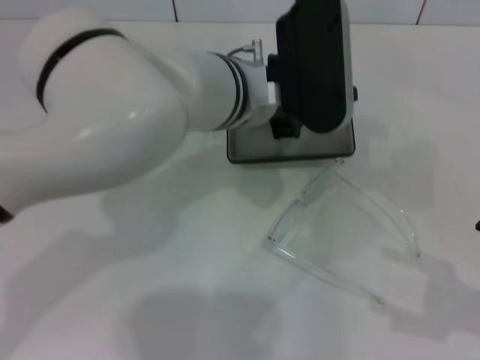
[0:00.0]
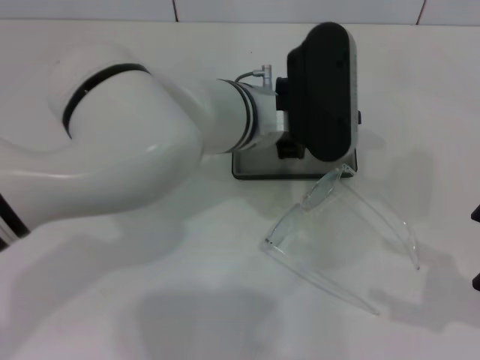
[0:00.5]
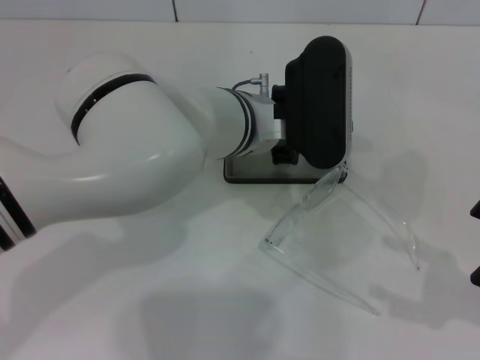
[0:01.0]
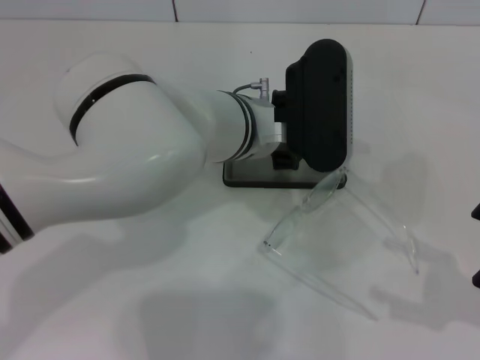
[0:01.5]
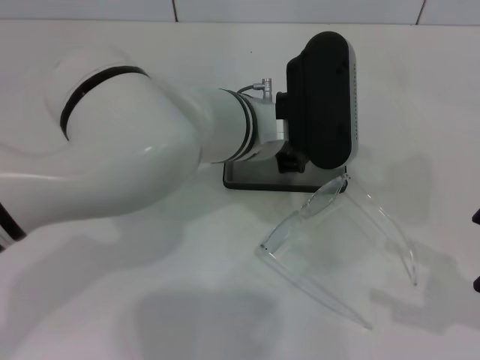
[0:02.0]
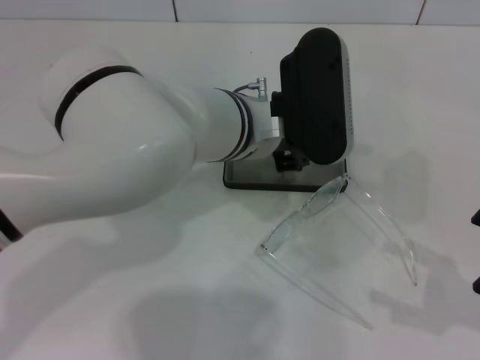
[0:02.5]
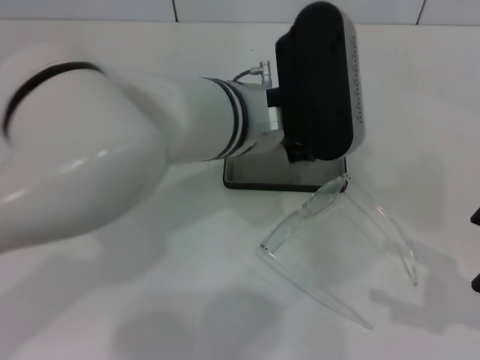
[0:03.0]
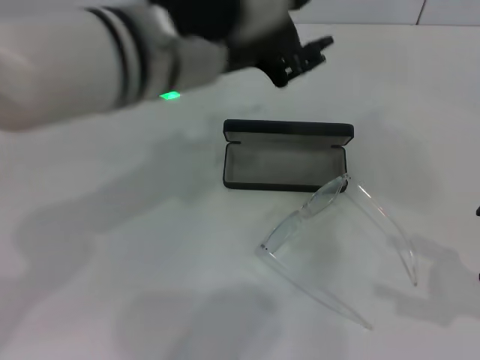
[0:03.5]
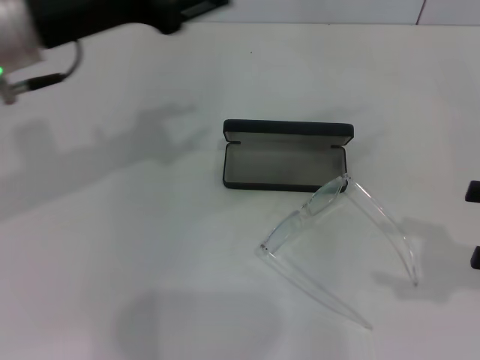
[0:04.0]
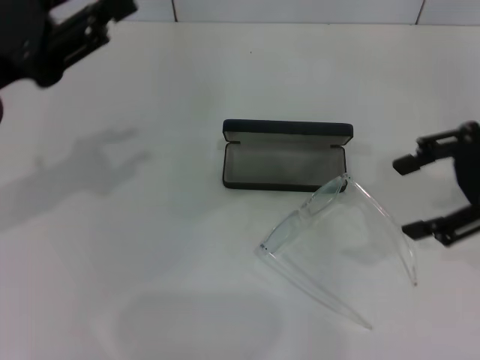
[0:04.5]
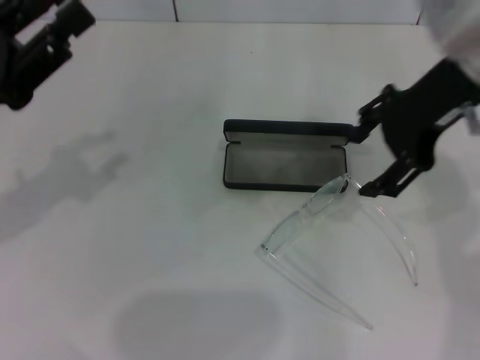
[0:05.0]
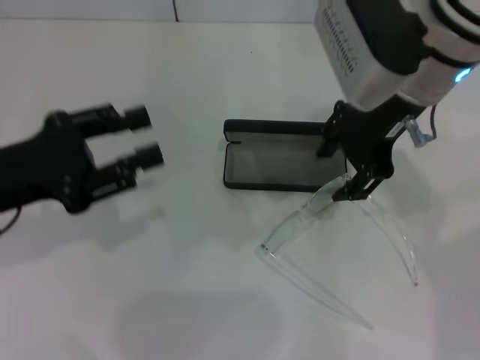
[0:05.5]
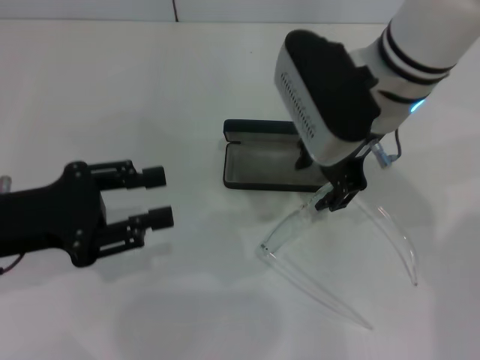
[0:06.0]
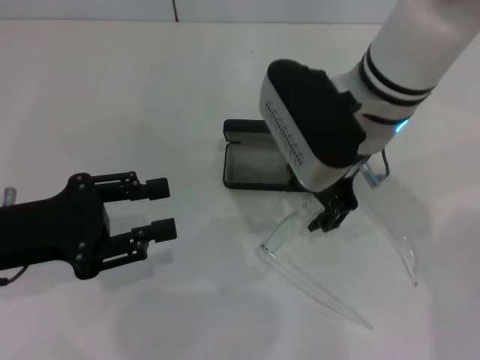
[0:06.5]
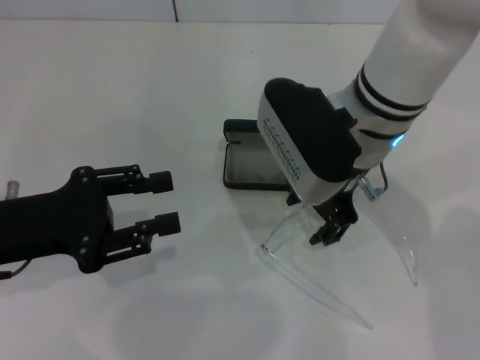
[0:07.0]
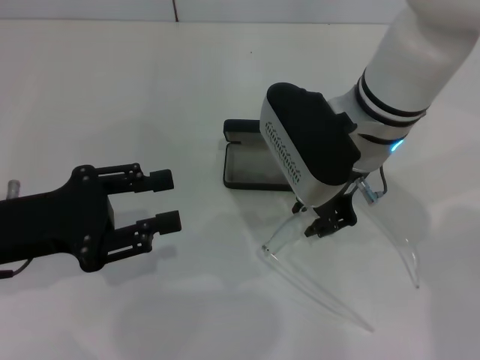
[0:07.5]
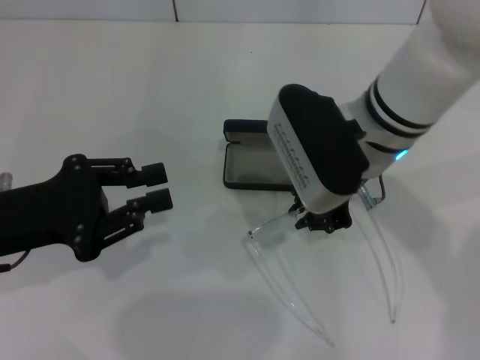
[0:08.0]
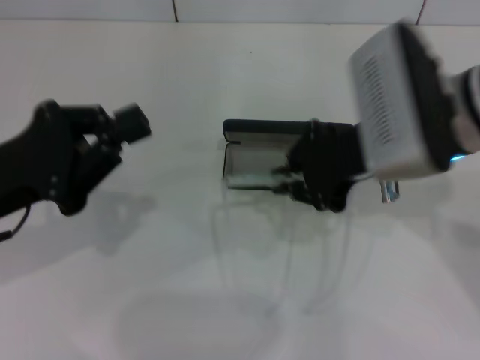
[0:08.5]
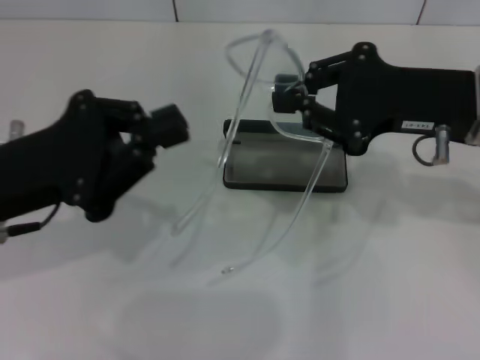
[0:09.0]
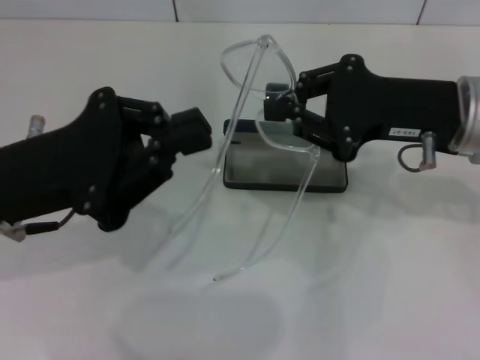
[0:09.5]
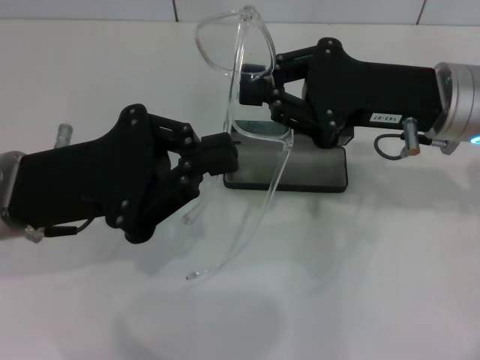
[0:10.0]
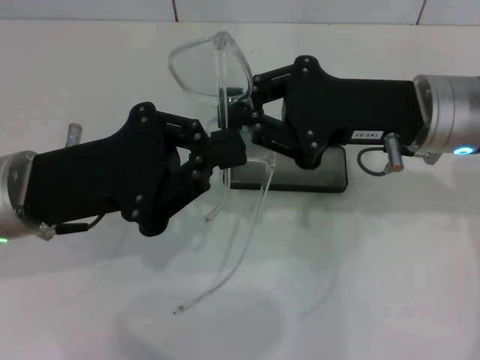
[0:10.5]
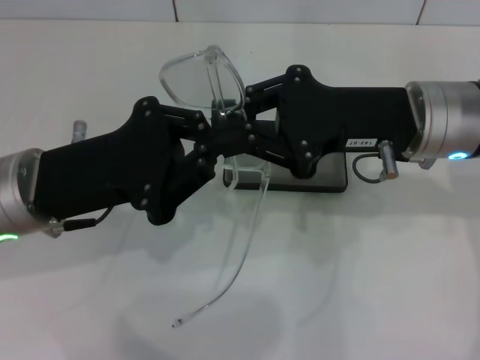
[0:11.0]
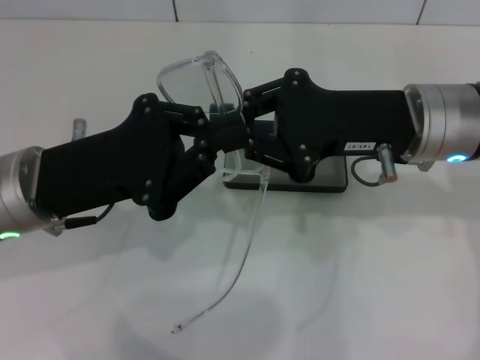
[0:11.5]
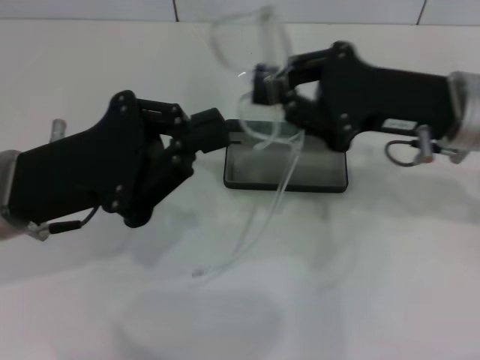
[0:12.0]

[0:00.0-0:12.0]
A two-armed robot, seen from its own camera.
Step, 0:02.0 to 0:07.5: Grab the eyeglass frame with your right hand.
0:00.0 to 0:02.0: The grippers make only small movements.
0:02.0 to 0:04.0: The right gripper is displaced upward and forward by about 5 cm; the left gripper goes roughly 20 cm to the left and upward.
0:04.0 to 0:06.0: The left gripper moves downward, to the left and backward, about 15 cm. Meanwhile the right gripper travels to the left and forward by roughly 30 cm.
0:06.0 to 0:08.0: The right gripper closes its fingers.
0:08.0 to 0:10.0: The right gripper travels to the right by about 10 cm; the left gripper is displaced to the right by some 5 cm, and closes up.
0:10.0 to 0:12.0: There are only small adjustments of the grippers.

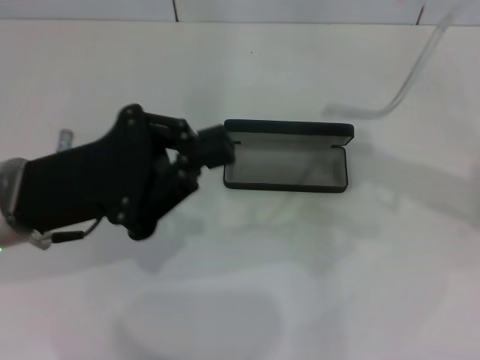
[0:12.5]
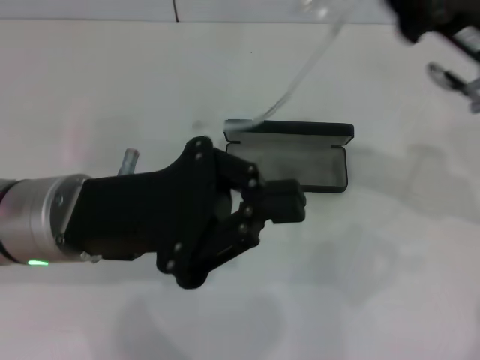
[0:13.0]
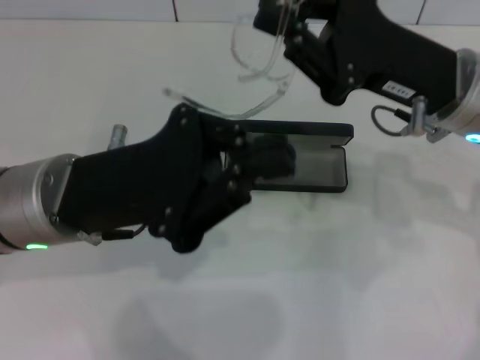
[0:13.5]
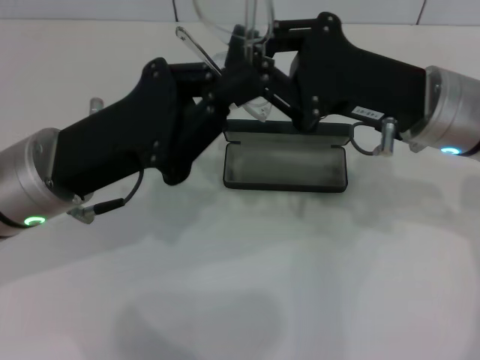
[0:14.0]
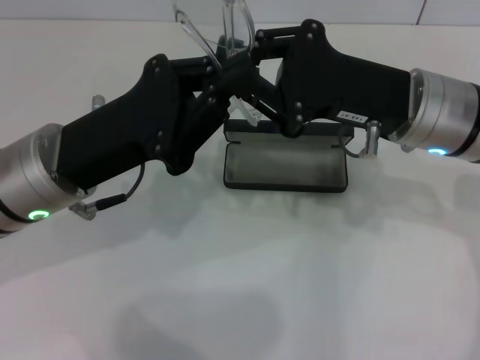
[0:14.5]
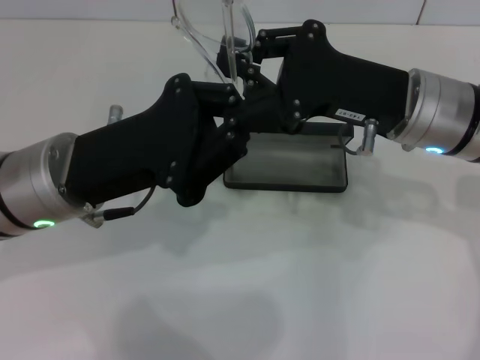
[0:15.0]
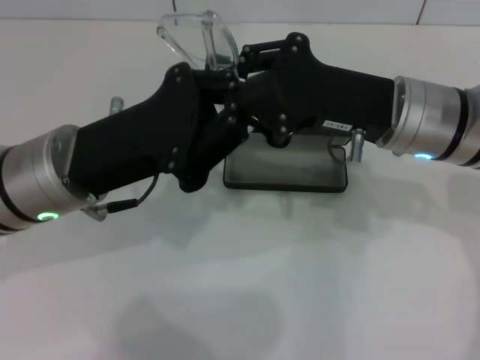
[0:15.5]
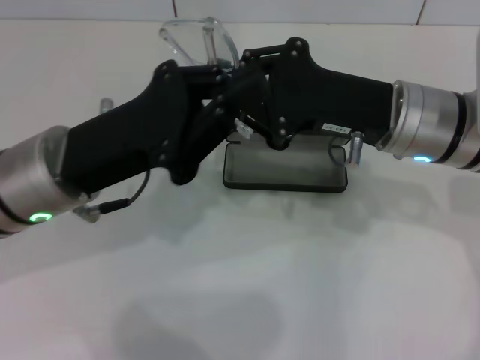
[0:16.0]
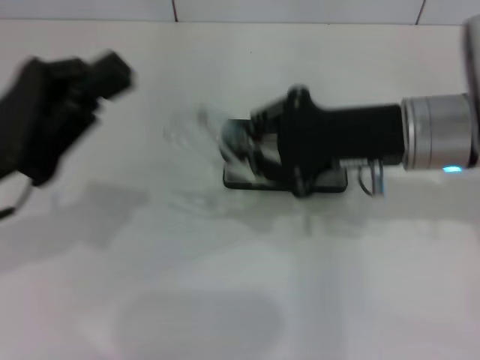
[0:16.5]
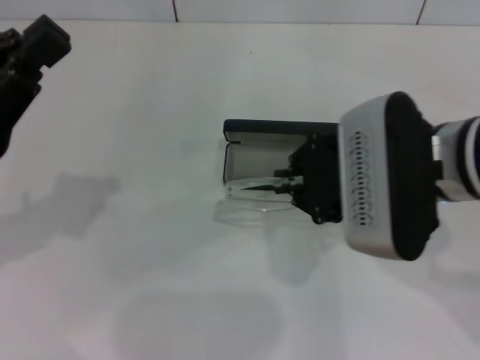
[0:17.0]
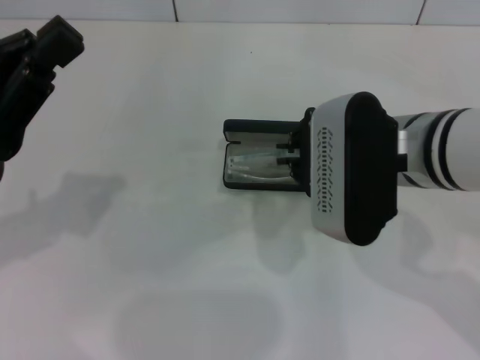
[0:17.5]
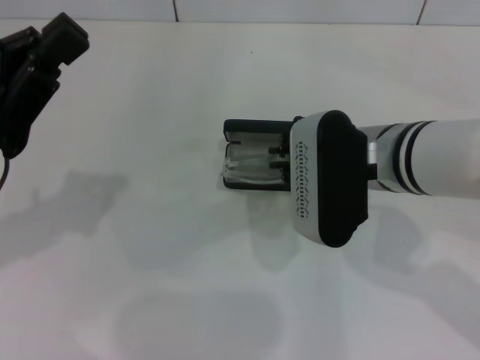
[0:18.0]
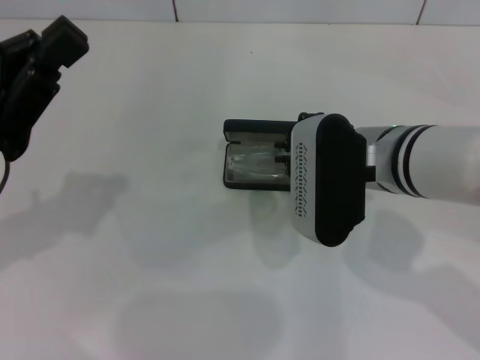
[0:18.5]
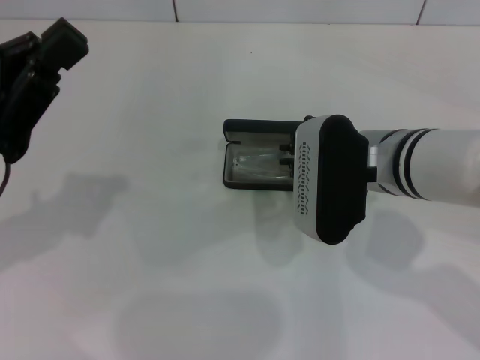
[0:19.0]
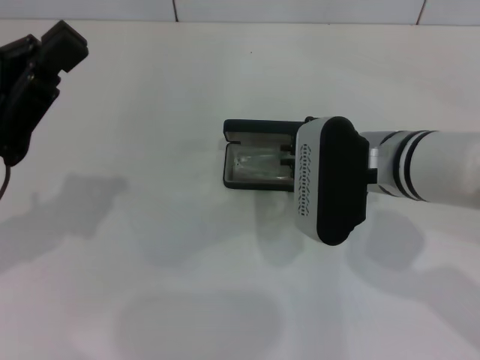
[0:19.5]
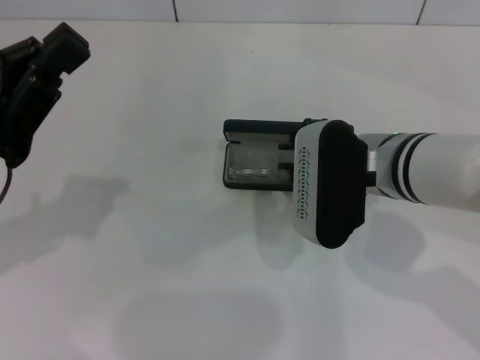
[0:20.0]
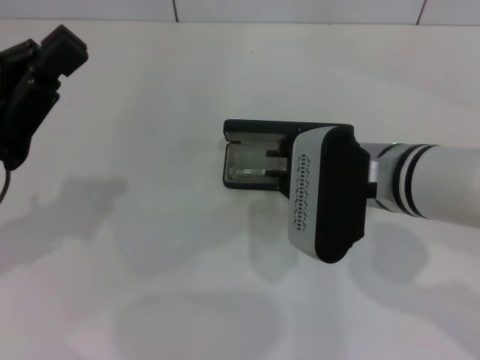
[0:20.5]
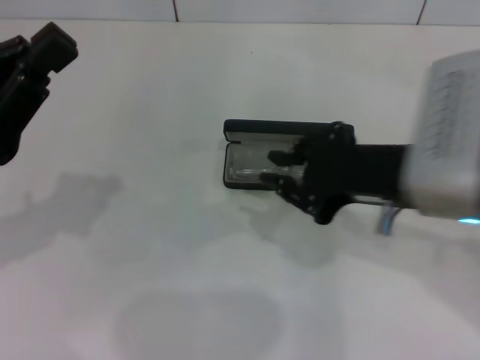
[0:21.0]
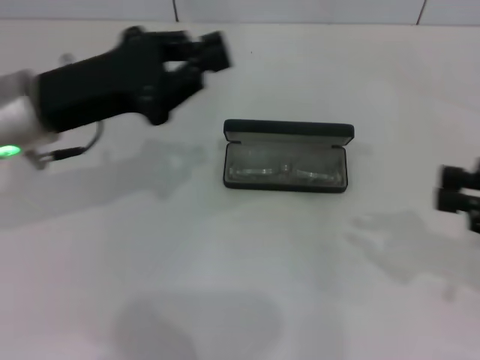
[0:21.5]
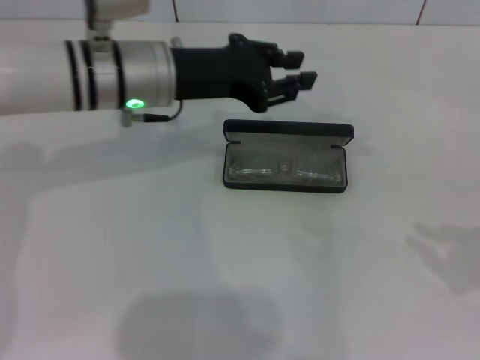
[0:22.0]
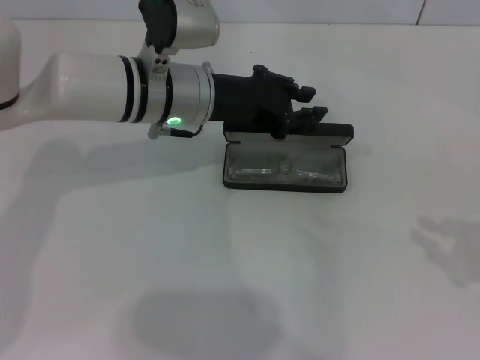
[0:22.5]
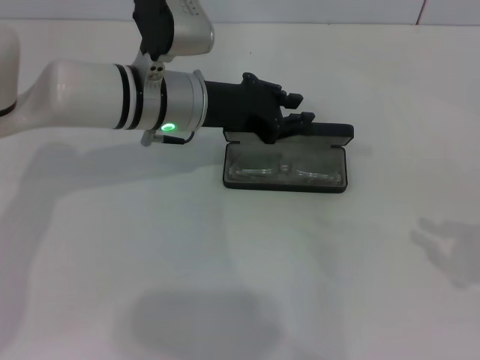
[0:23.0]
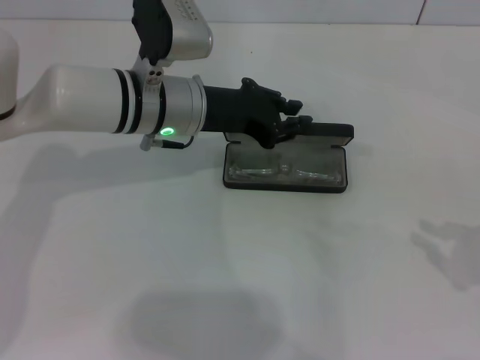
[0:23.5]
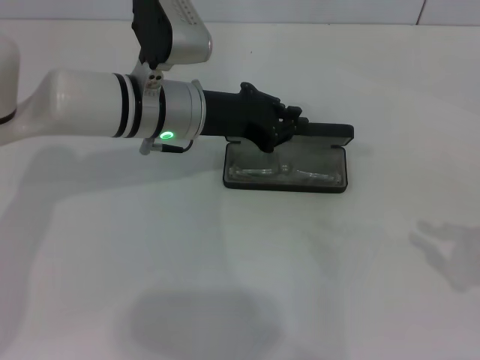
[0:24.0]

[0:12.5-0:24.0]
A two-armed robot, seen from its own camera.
Step, 0:14.5 to 0:20.0: Put the glasses into the case with your right hand.
0:12.5 to 0:14.5: The right gripper travels to the left by roughly 10 cm.
0:14.5 to 0:16.5: The left gripper is displaced to the left by some 5 cm.
0:16.5 to 0:18.5: The right gripper heads to the left, covering some 5 cm.
0:18.5 to 0:20.0: Both grippers stay about where they are.
0:20.0 to 0:22.0: The left gripper moves forward and to the right, approximately 20 cm, and opens. The right gripper travels to the right and backward by approximately 30 cm.
0:22.0 to 0:24.0: There are only small adjustments of the grippers.

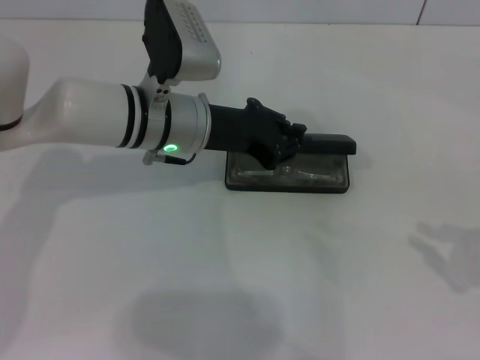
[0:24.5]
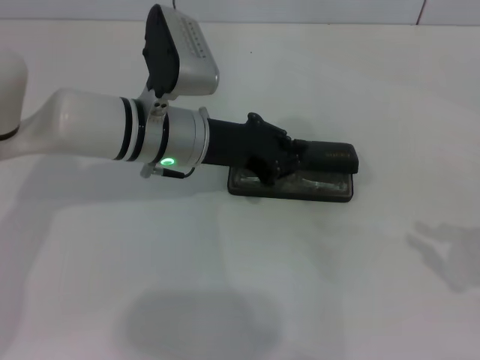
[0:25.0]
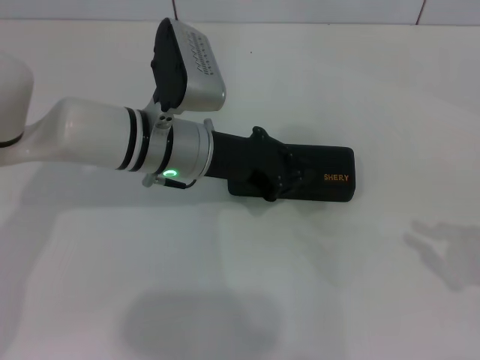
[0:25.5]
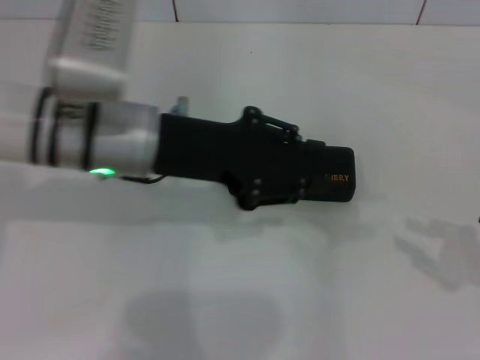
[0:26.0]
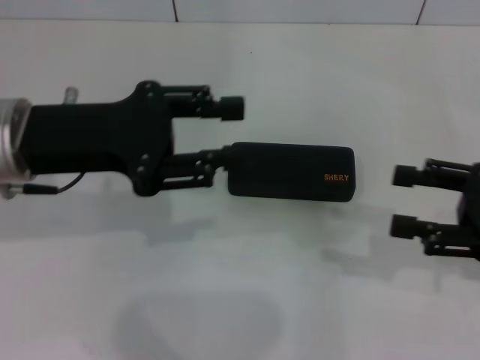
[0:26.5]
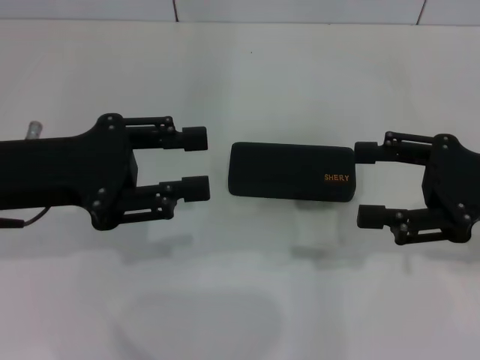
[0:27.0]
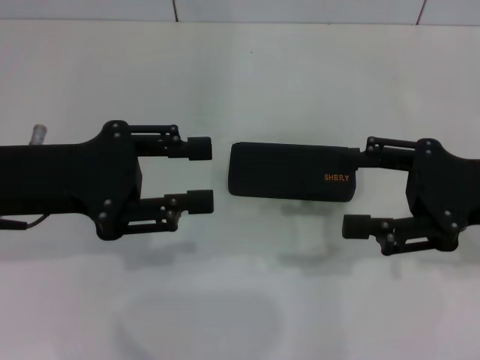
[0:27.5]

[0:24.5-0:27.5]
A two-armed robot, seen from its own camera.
0:24.5 to 0:26.0: The left gripper heads backward and upward, covering about 10 cm.
0:26.0 to 0:27.5: The left gripper is displaced to the left by roughly 10 cm. Meanwhile the right gripper travels to the left and forward by roughly 15 cm, and opens up.
